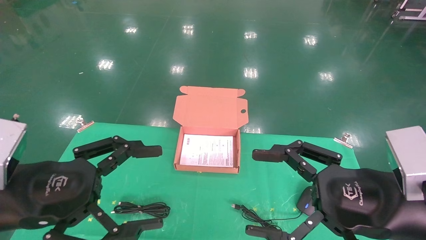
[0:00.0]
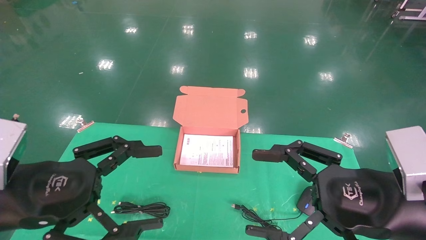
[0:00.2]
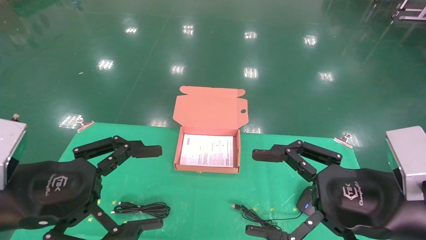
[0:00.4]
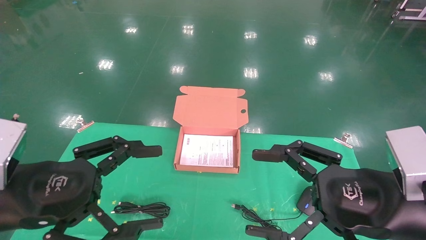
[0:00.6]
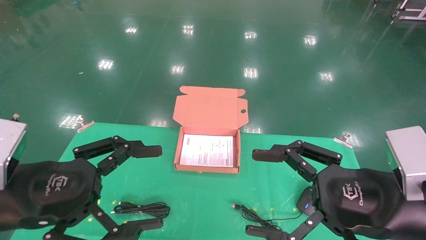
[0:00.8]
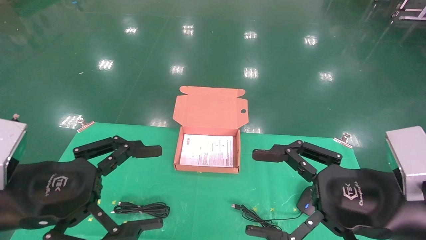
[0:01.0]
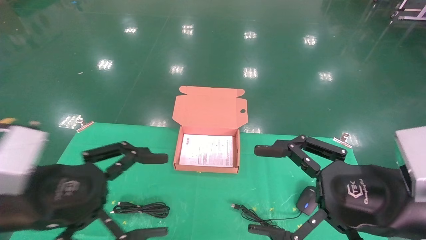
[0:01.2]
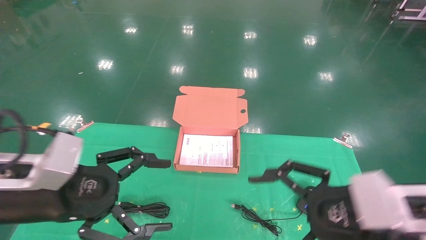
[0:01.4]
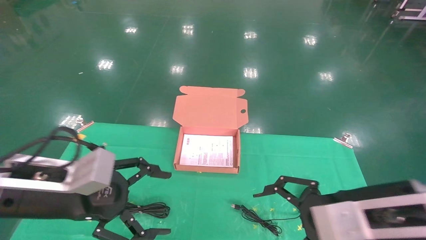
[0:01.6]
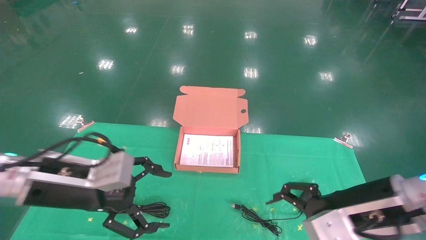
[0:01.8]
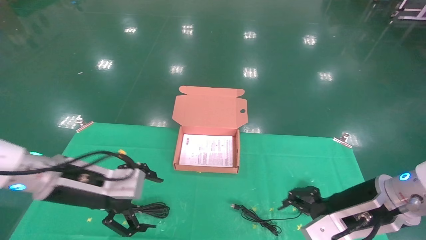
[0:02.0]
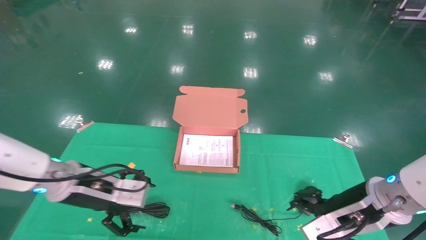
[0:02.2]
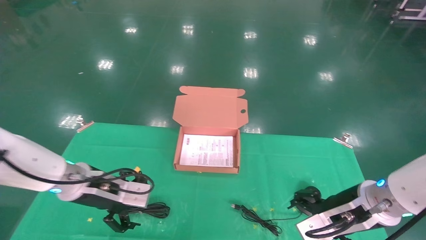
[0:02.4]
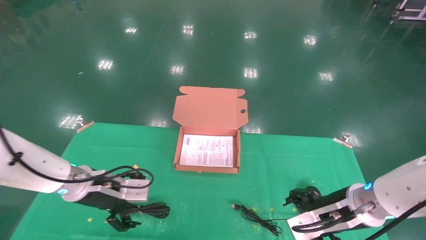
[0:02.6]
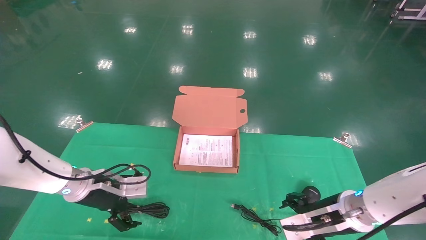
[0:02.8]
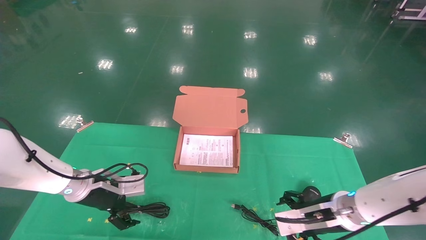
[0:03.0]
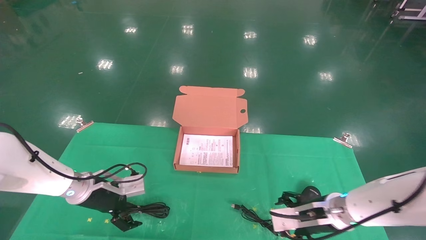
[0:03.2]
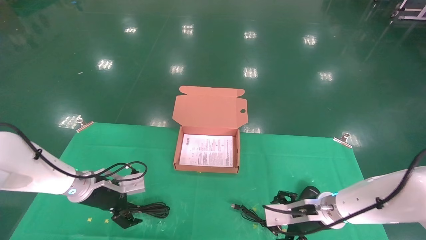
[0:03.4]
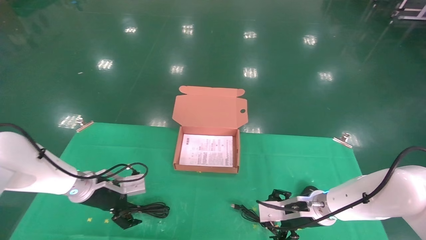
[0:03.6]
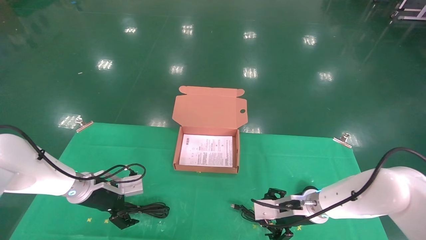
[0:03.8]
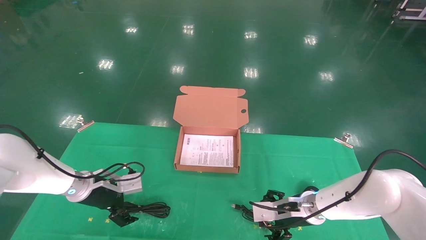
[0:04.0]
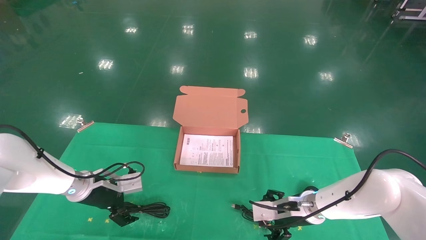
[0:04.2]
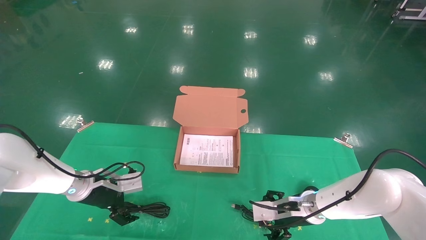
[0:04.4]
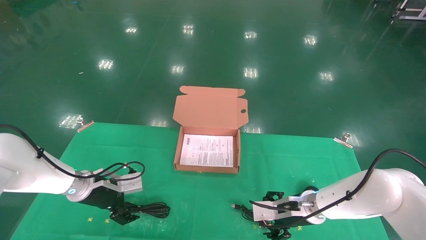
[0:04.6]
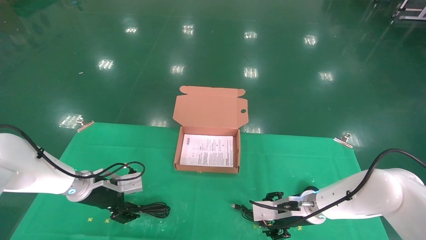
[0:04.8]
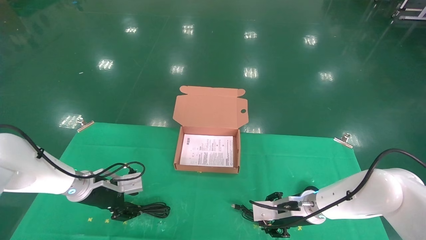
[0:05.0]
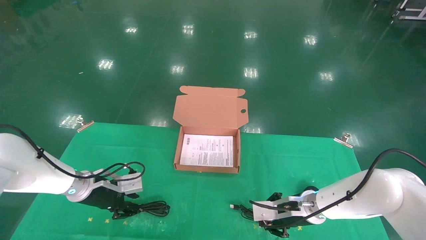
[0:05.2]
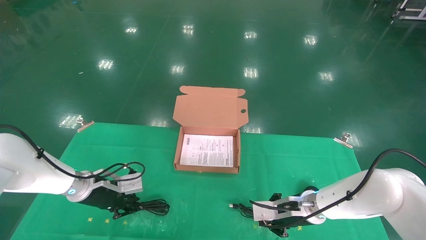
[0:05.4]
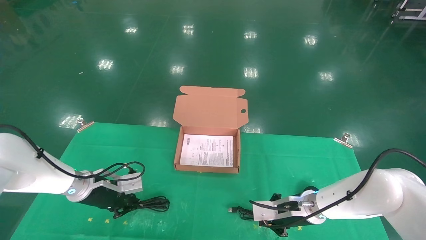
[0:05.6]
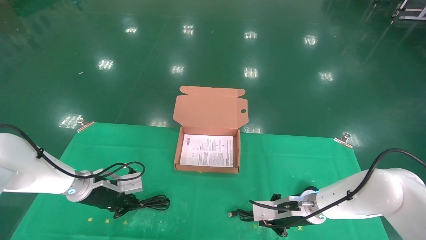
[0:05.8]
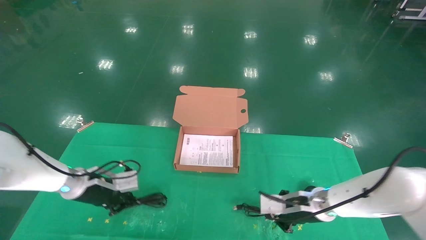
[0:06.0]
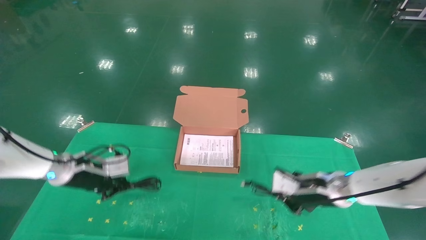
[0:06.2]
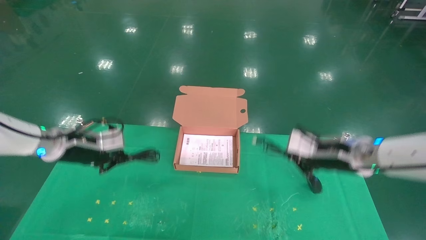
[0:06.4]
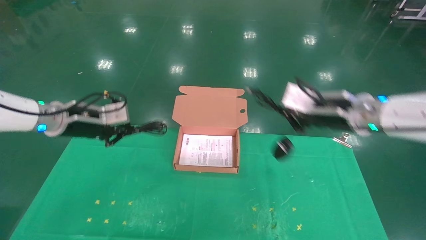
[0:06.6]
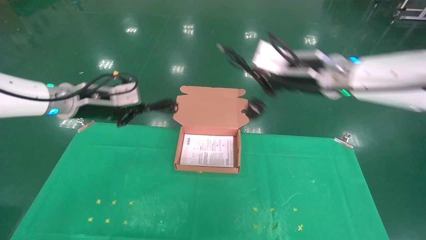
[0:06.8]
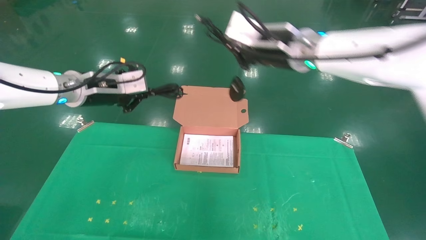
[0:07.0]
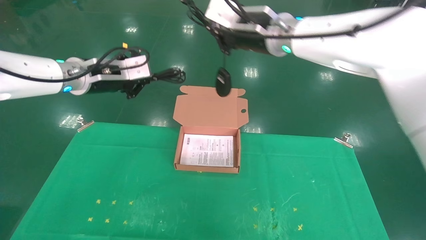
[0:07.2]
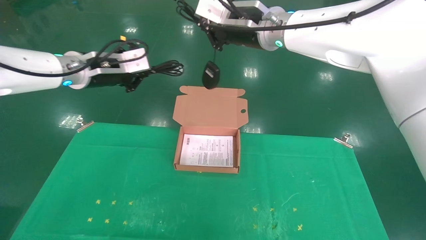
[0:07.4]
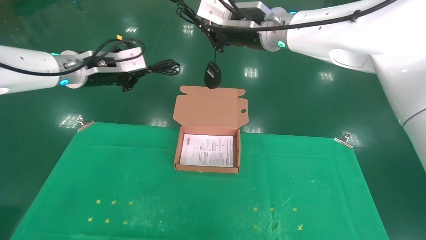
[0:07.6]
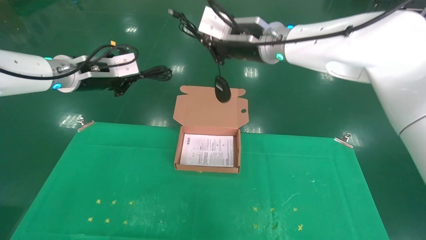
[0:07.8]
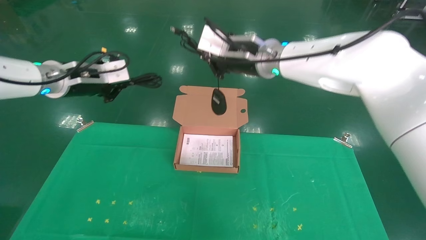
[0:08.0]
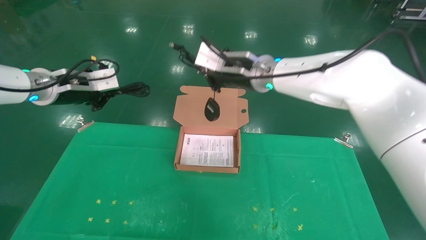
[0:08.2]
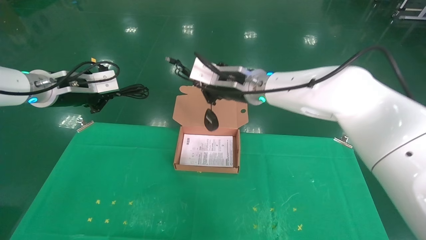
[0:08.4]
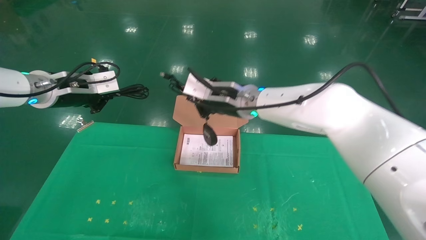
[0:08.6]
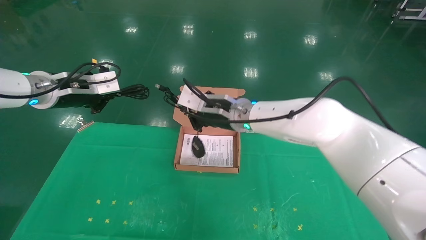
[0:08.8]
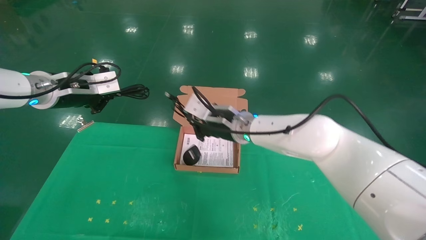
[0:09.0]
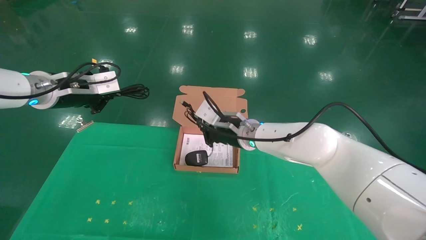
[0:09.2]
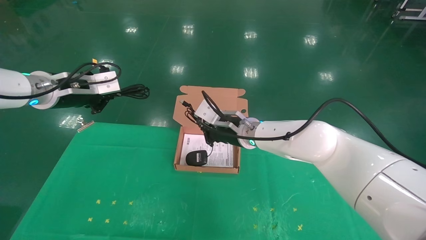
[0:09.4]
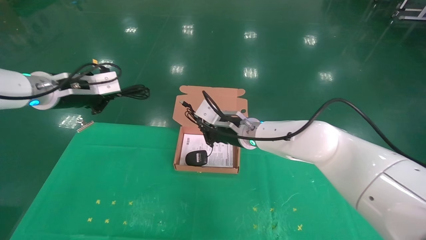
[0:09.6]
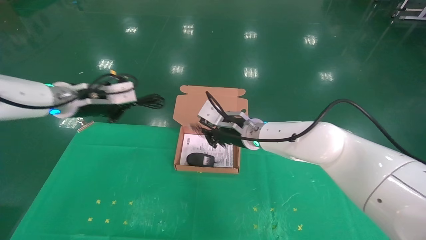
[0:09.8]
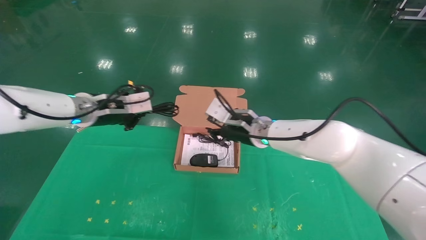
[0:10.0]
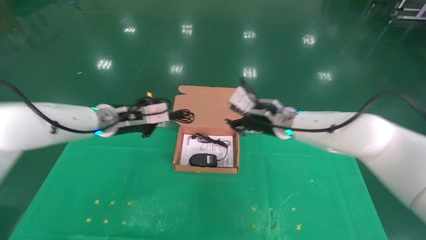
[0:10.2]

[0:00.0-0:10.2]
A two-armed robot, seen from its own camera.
Task of the whole recording: grasp data cable left put into box grasp mouse right put into box.
Step, 0:01.0 to 0:05.6: Grab and pick up both the mouse and power cord from the accessory packaging area at the same time.
0:01.4 to 0:03.0: The two grippers go roughly 20 cm forward and downward.
0:03.0 to 0:04.4: The right gripper heads forward, covering some 5 cm.
0:04.4 to 0:05.8: The right gripper closes up. The left gripper closes.
0:05.8 to 0:07.2: The grippers both shift upward by approximately 30 cm.
0:07.2 to 0:08.8: The left gripper goes about 5 cm to the left, while the right gripper shifts about 15 cm downward and to the left.
0:08.8 to 0:10.2: The right gripper moves to the right, approximately 10 cm. The left gripper moves to the right and downward, about 15 cm.

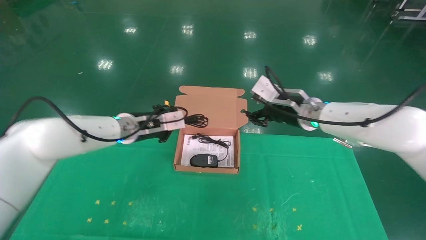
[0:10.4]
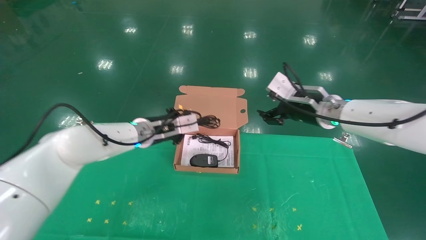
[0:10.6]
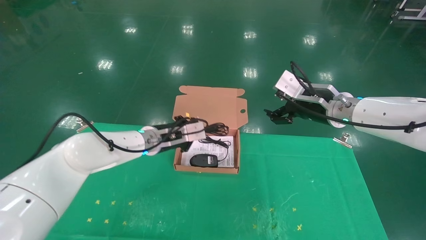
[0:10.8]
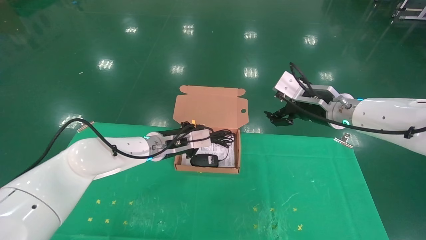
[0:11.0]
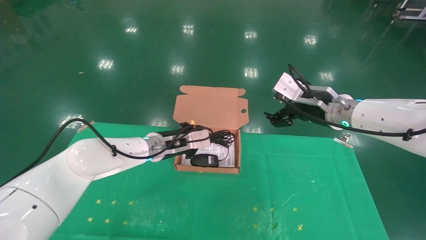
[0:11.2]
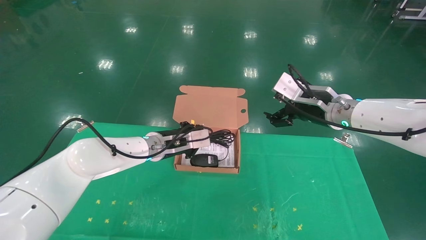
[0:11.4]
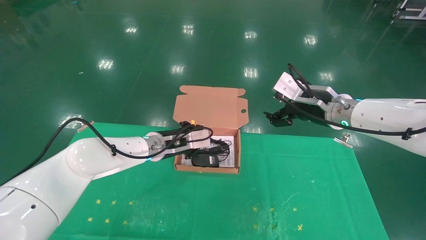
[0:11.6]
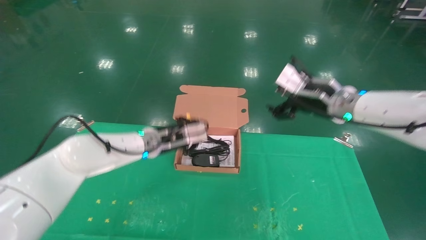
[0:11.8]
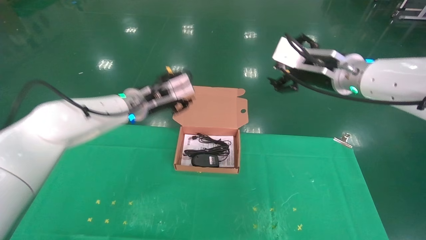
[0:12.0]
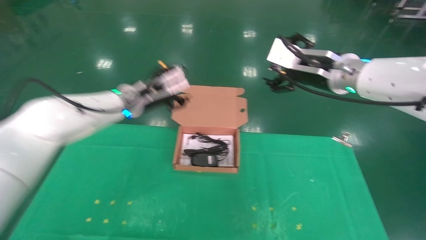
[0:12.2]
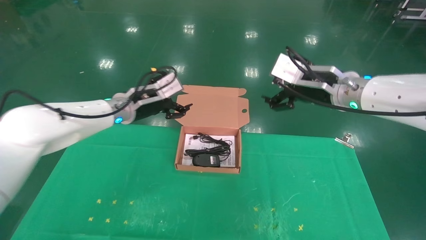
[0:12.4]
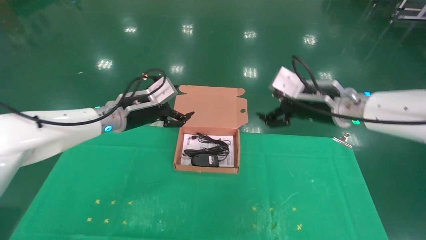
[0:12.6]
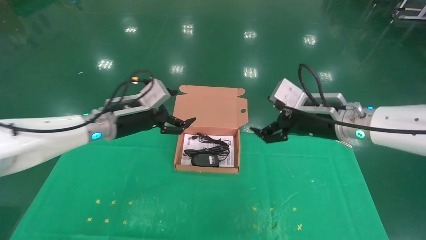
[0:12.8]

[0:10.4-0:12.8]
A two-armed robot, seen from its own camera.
Task of the whole recording: grasp data cable left put into box grasp mouse right put into box.
0:10.4 to 0:11.6: The right gripper changes place by about 5 cm, and opens, while the left gripper shifts by roughly 5 cm.
0:11.6 to 0:12.8: The right gripper moves roughly 5 cm. The left gripper travels to the left, upward and backward by approximately 10 cm, and opens up.
